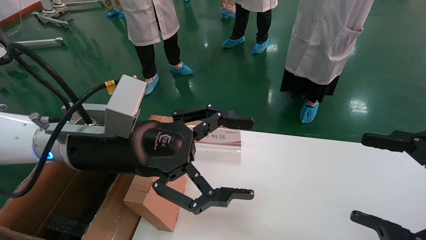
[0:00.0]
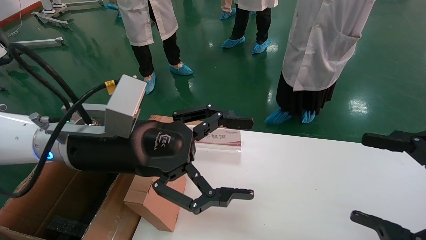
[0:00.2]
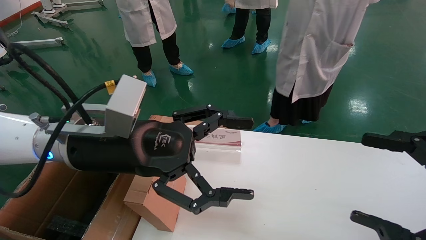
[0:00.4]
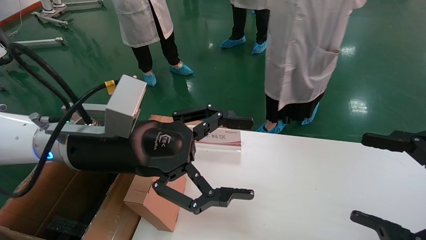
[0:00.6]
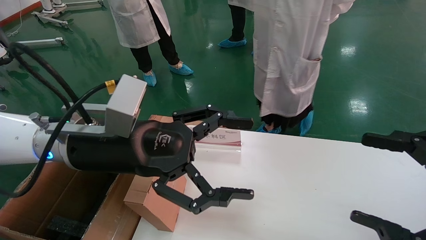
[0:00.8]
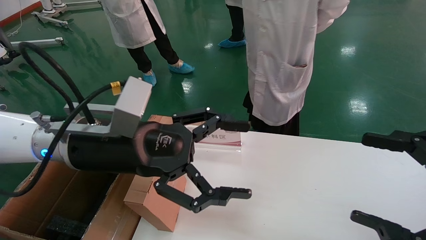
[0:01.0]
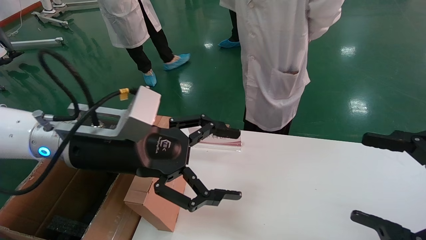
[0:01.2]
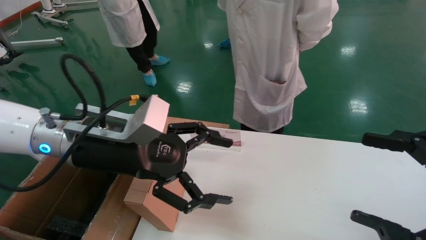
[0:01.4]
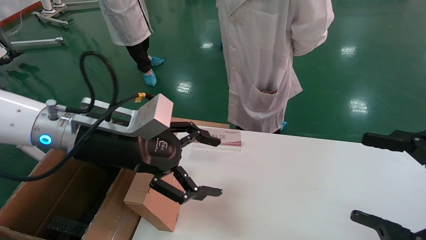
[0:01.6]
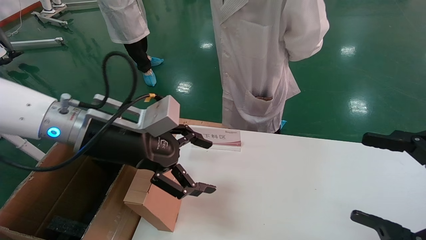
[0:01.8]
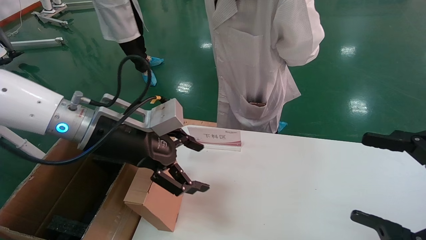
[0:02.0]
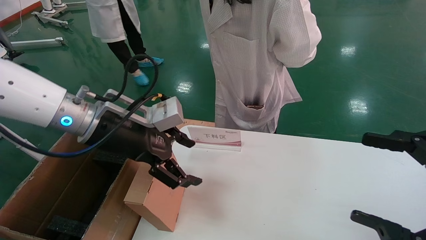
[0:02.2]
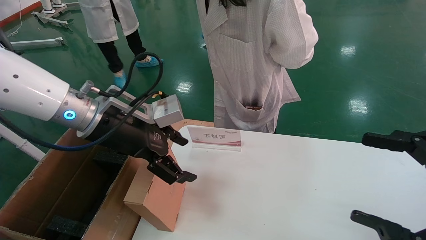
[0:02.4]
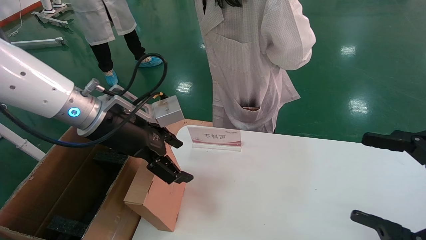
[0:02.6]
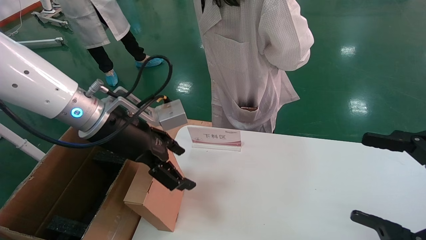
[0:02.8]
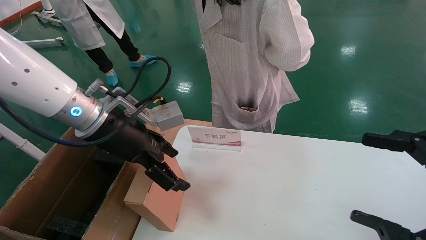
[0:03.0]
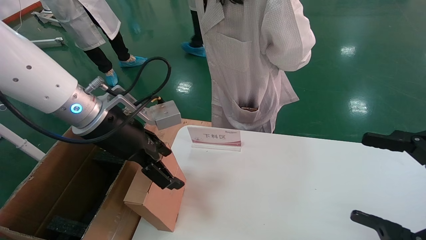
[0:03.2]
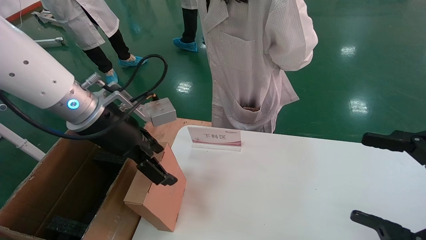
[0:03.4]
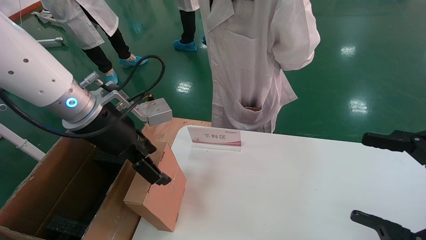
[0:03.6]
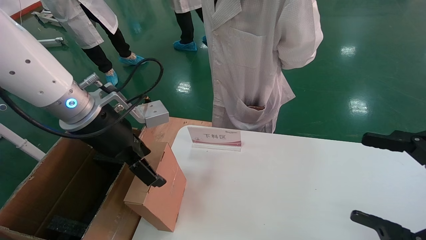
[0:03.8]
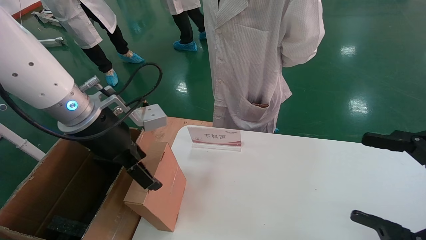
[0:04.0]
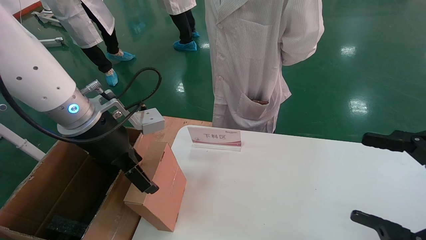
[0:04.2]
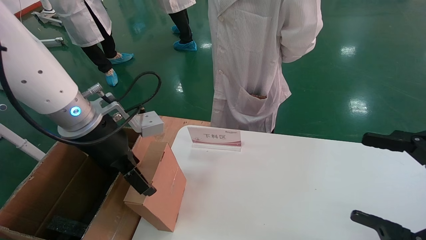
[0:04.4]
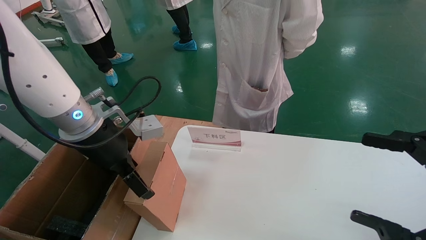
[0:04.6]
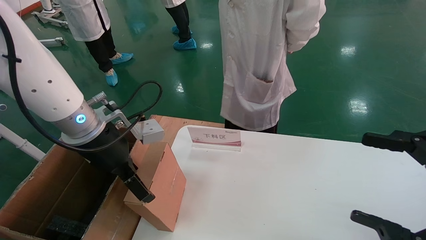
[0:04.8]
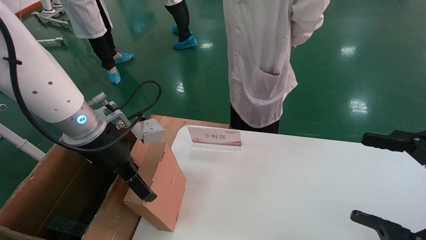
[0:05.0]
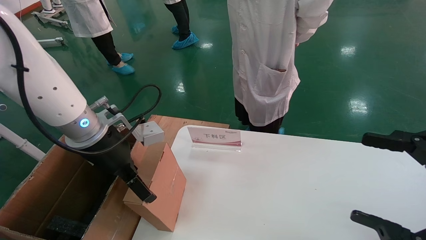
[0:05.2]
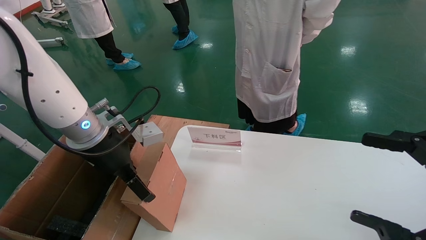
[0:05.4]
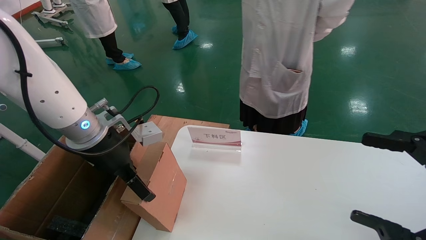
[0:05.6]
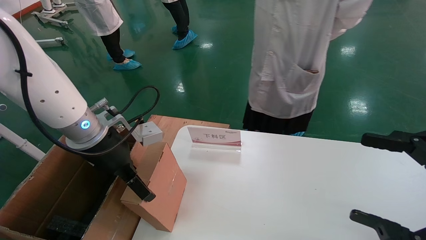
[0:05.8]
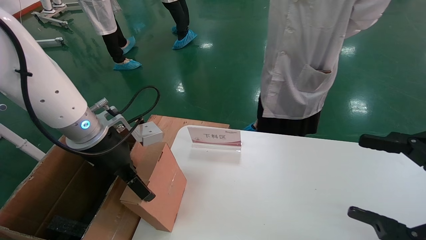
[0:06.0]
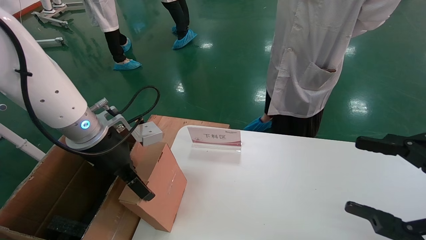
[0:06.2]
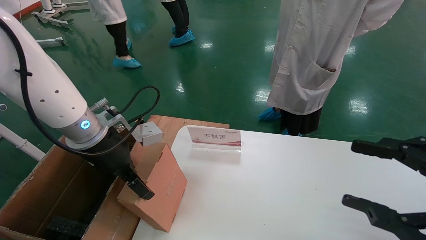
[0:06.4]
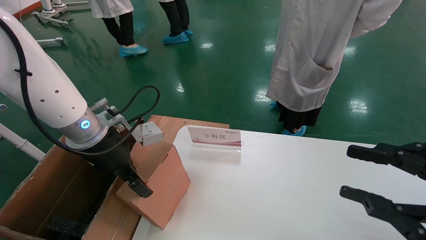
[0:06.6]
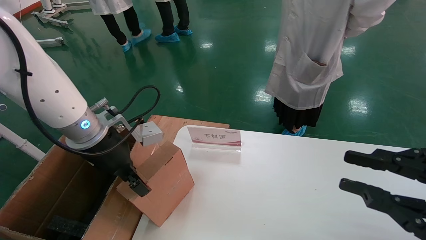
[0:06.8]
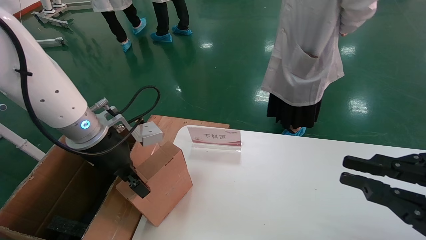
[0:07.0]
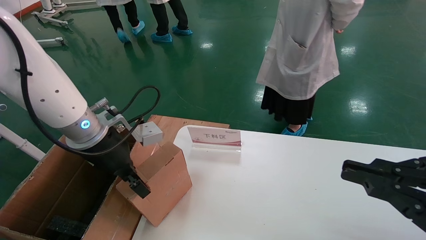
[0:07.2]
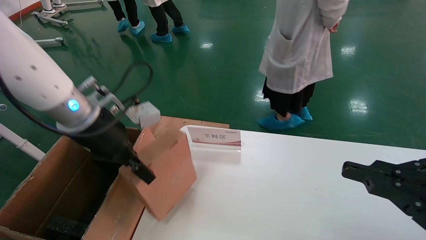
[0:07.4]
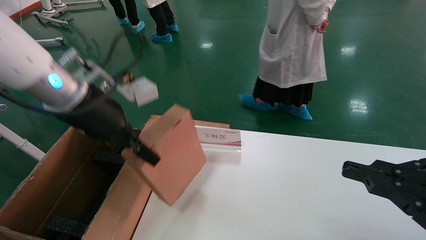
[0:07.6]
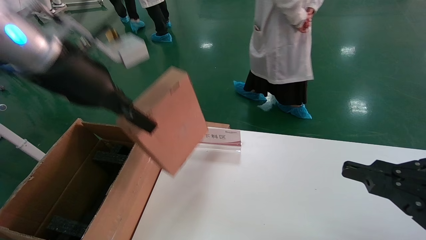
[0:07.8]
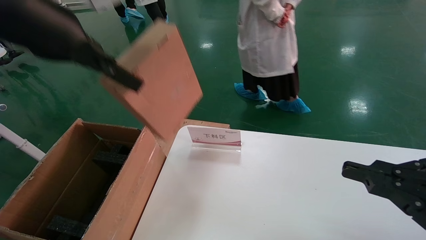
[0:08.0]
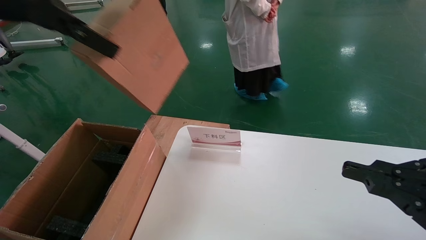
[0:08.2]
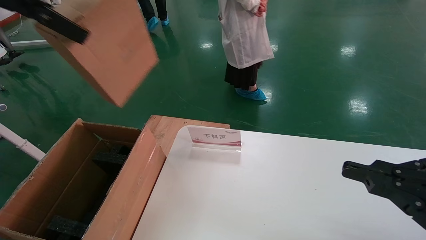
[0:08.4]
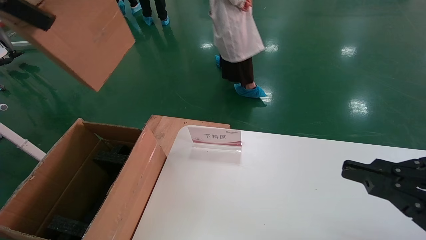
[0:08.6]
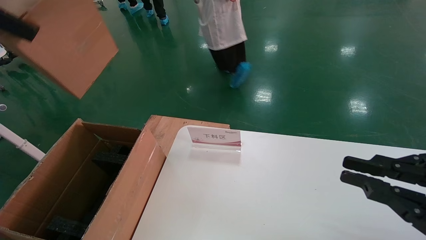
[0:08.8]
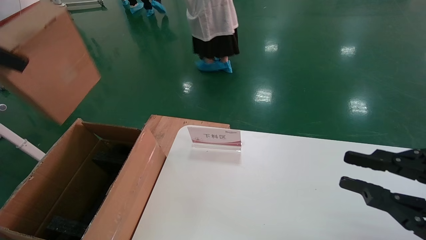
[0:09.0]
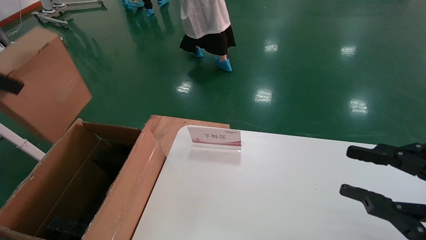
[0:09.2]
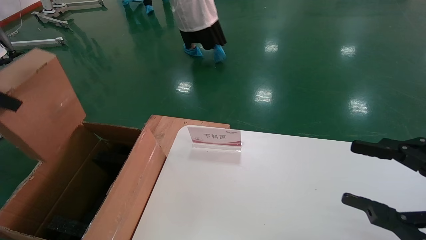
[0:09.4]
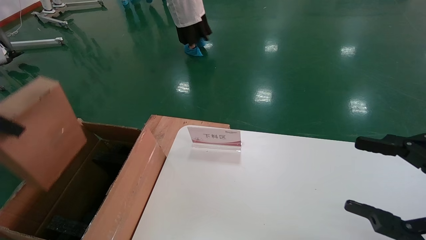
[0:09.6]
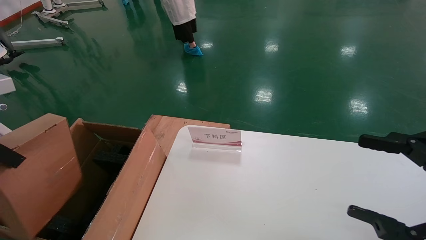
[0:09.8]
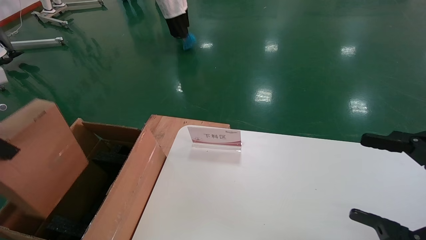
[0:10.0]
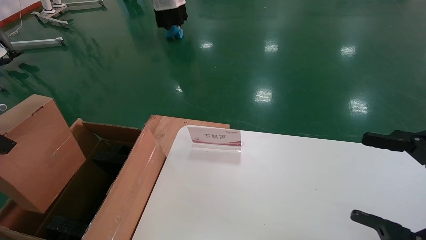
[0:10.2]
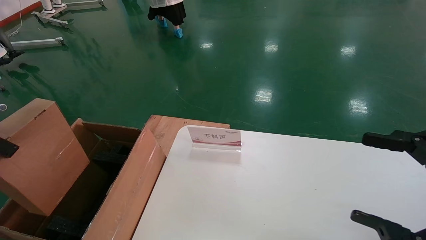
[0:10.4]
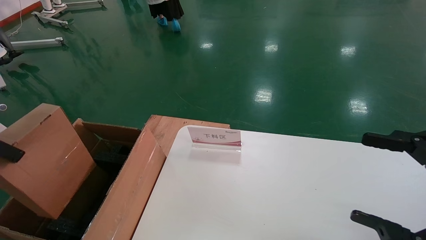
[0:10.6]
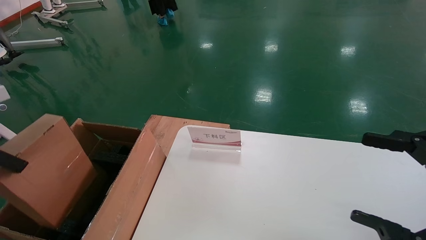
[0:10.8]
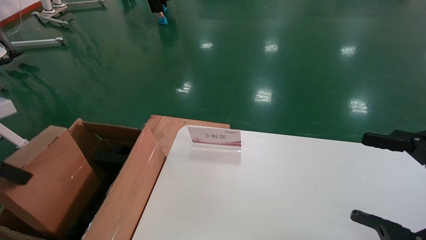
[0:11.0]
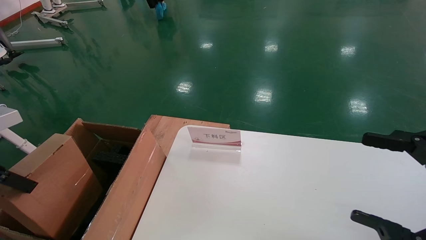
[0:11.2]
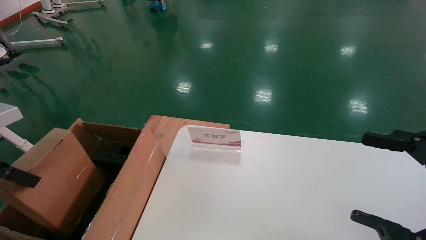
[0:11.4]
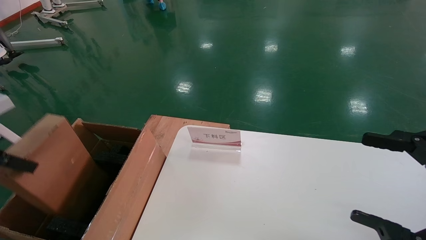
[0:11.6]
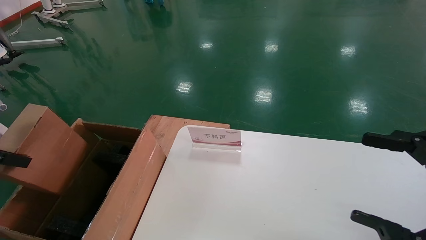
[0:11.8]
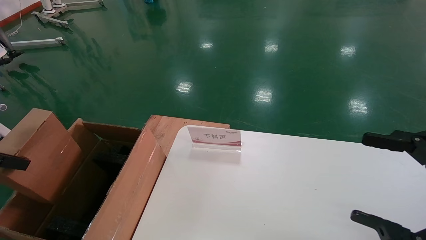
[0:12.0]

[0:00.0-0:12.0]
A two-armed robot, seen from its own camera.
Task of the whole recording: pick up the small cardboard box and load it into the large cardboard box.
Step, 0:01.4 to 0:06.6: Pick up the mouse and power cord box.
0:06.0 to 0:07.6: The right gripper closes; the left gripper is displaced upward by about 10 cm, and closes its fingers.
0:07.6 to 0:09.0: The left gripper travels to the left, upward and backward by approximately 25 cm.
0:09.0 to 0:10.4: The left gripper shifts about 10 cm downward and to the left; the right gripper opens up.
0:10.4 to 0:12.0: The left gripper is displaced downward by approximately 10 cm.

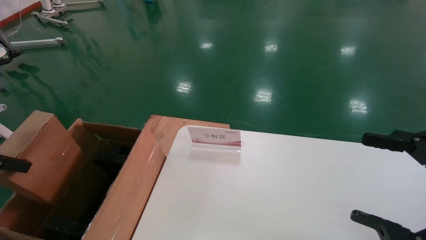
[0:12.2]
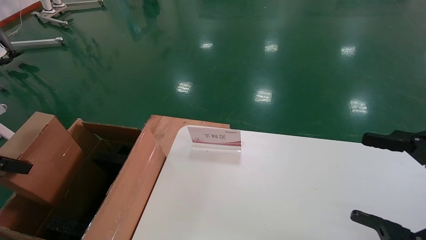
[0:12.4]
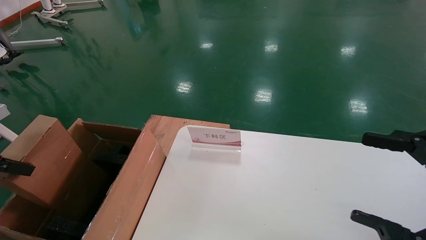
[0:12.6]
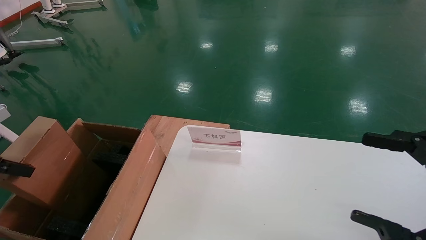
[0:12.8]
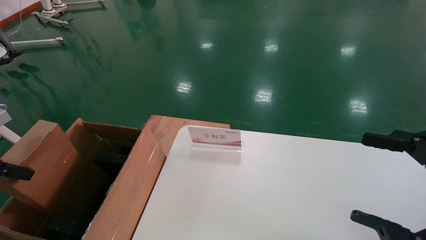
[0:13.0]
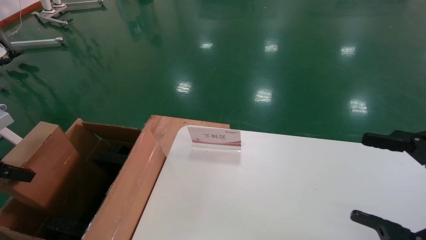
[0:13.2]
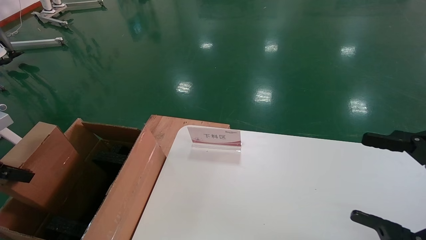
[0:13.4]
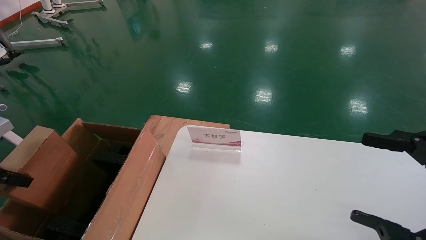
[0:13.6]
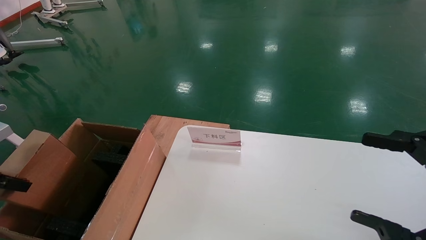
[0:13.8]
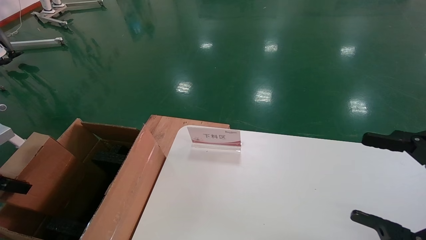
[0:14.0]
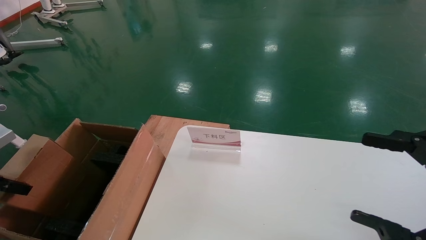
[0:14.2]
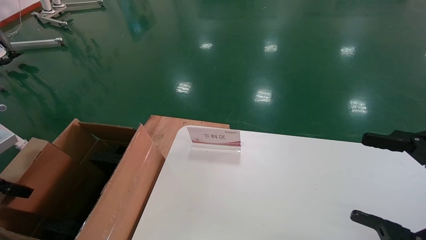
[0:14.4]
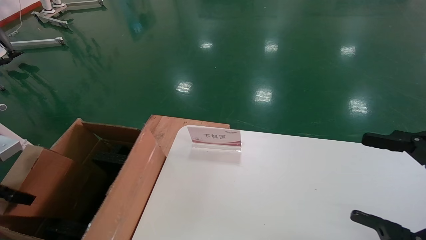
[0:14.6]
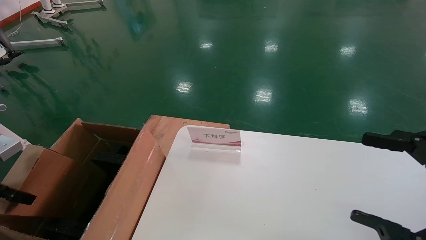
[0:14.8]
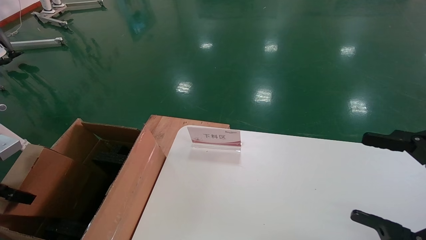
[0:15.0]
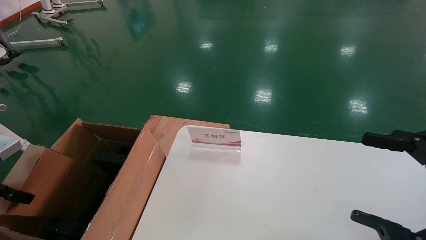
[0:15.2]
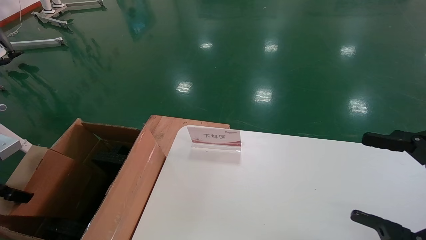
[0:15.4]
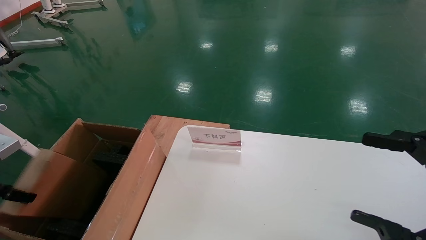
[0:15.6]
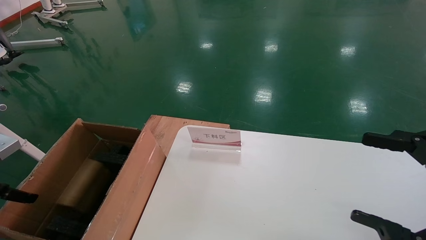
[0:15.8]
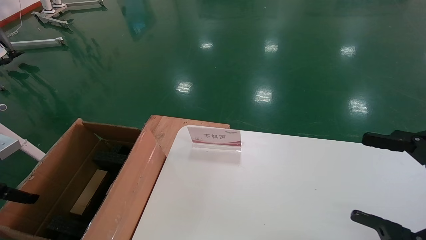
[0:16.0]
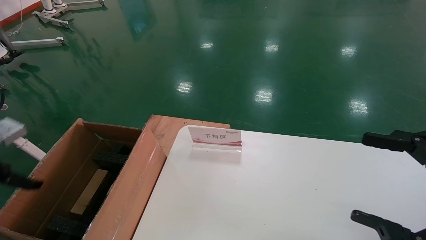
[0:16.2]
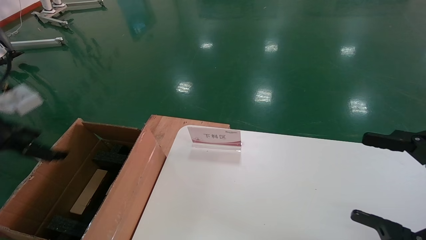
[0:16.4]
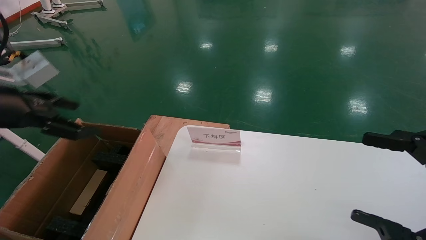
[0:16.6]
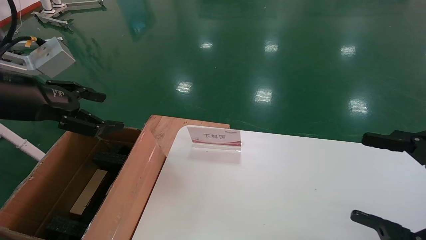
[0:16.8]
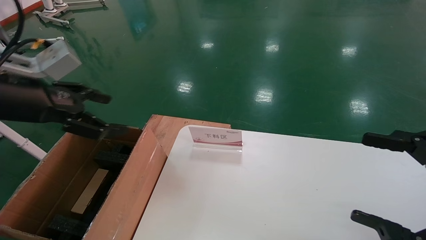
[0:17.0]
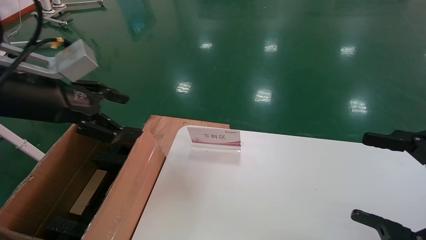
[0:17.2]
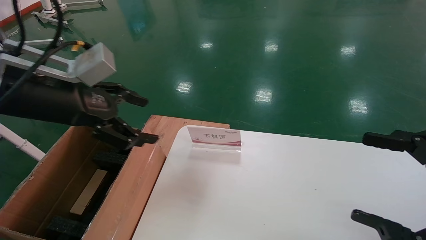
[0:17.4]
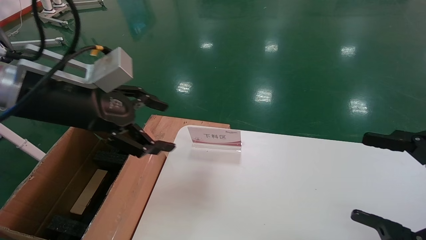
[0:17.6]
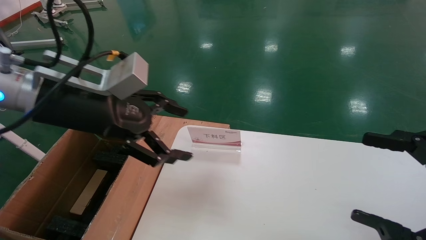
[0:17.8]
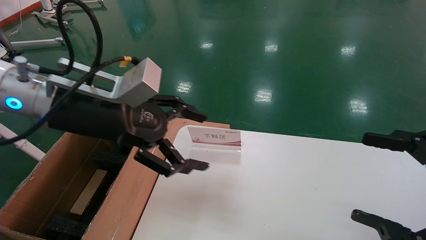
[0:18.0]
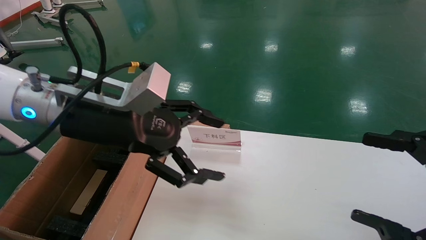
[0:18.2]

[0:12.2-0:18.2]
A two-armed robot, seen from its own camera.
Task of the whole recording: pick up the small cardboard box and load it into the large cardboard box.
Step, 0:12.2 to 0:15.8: Place the mouse and power cord box into the case.
0:12.2 to 0:13.8: The left gripper moves approximately 5 cm.
0:13.8 to 0:15.2: There are only small adjustments of the grippers.
0:15.2 to 0:16.6: The left gripper heads upward and to the right, covering approximately 15 cm, and opens.
0:16.6 to 0:18.2: The left gripper travels to the right by some 20 cm.
